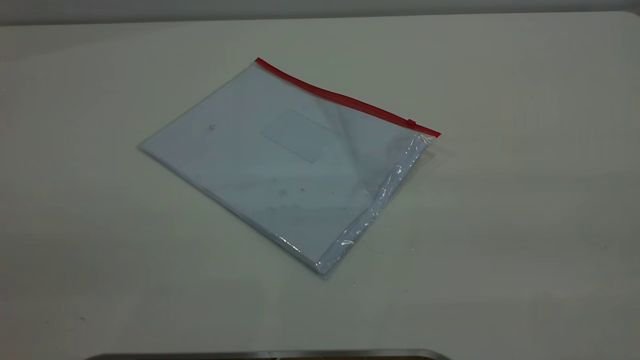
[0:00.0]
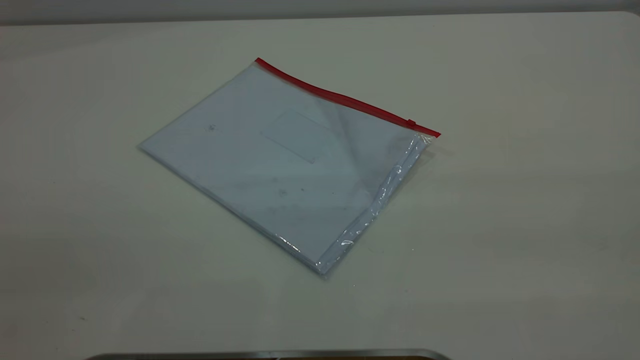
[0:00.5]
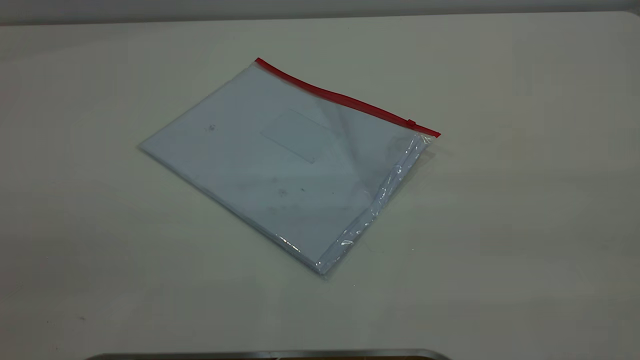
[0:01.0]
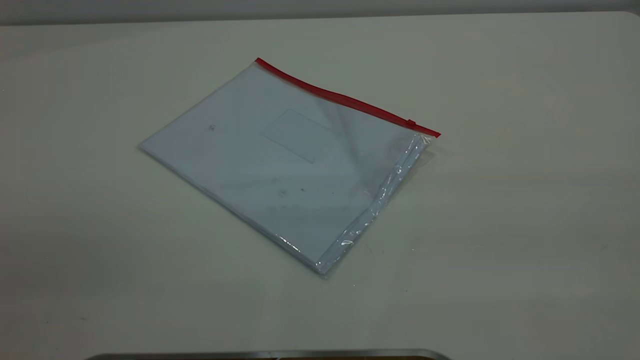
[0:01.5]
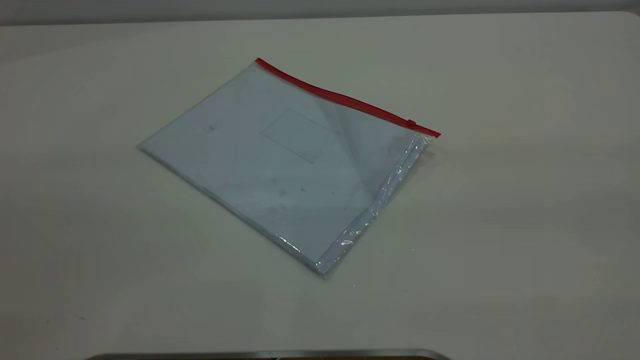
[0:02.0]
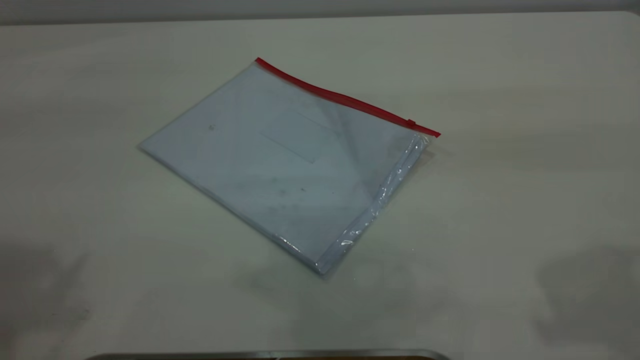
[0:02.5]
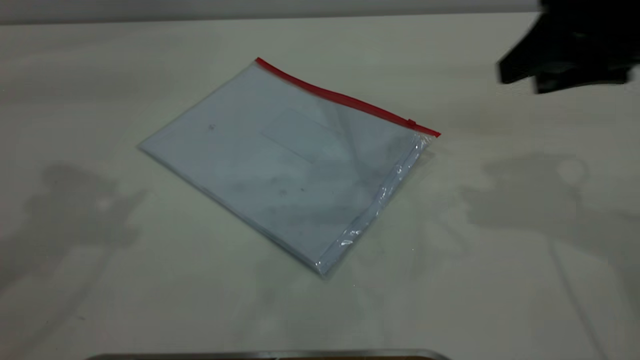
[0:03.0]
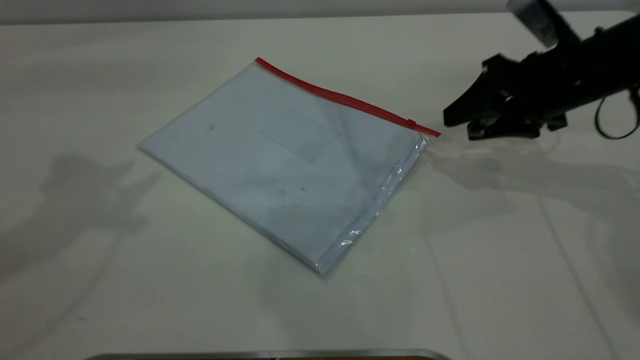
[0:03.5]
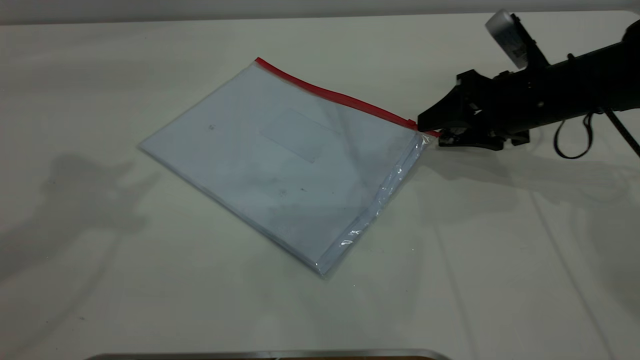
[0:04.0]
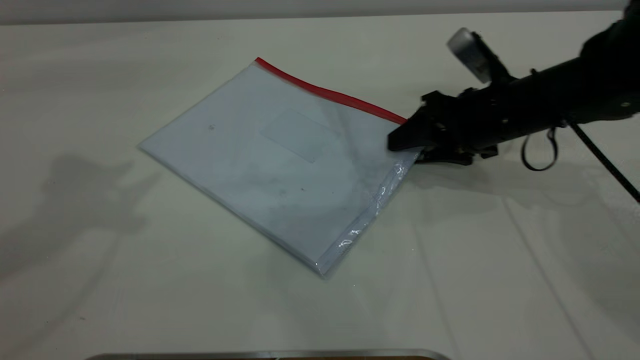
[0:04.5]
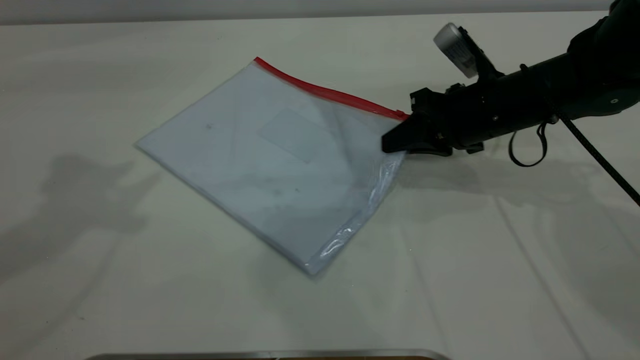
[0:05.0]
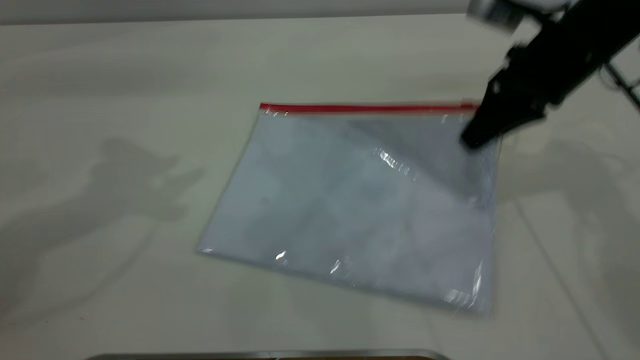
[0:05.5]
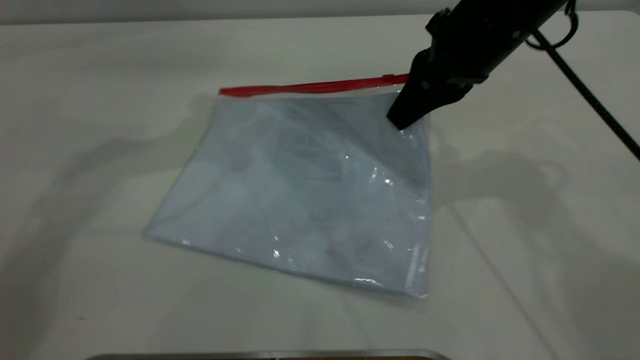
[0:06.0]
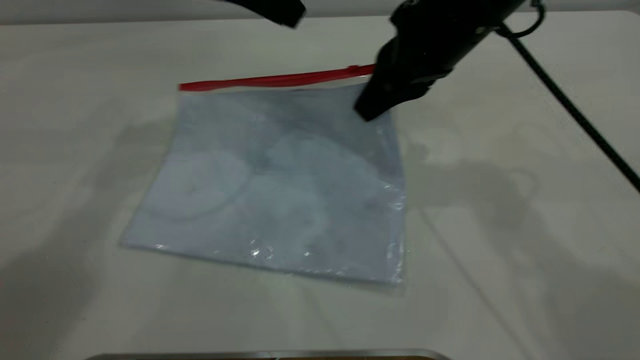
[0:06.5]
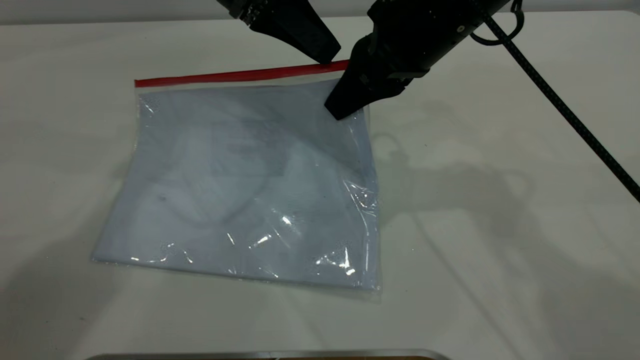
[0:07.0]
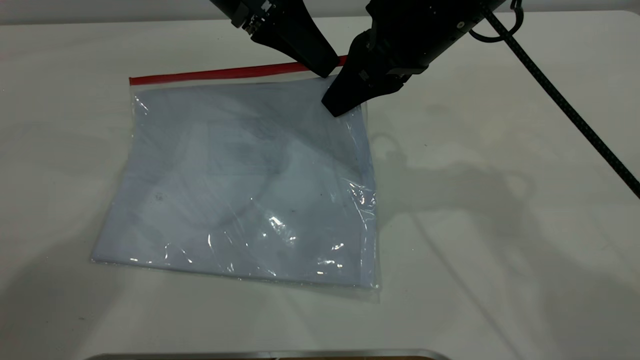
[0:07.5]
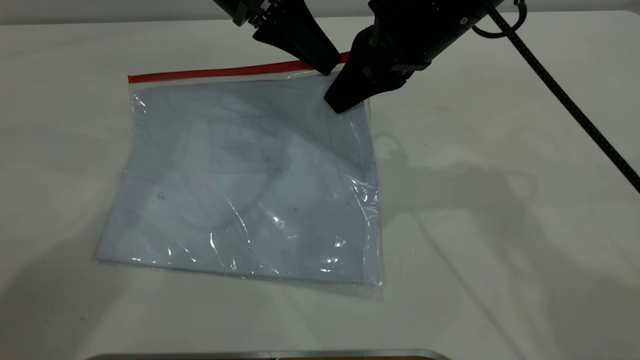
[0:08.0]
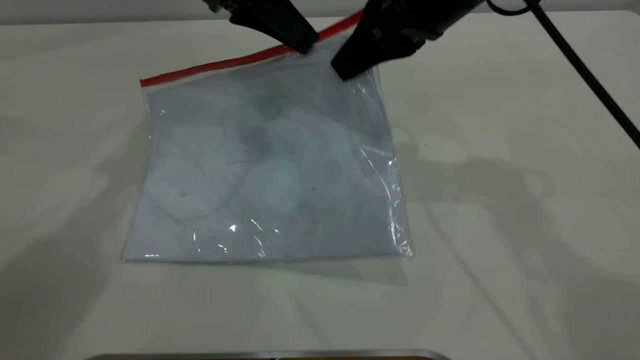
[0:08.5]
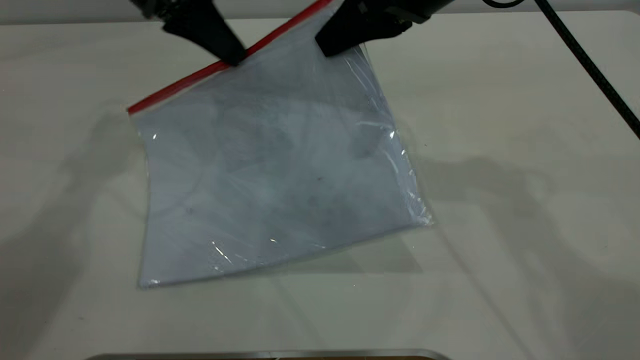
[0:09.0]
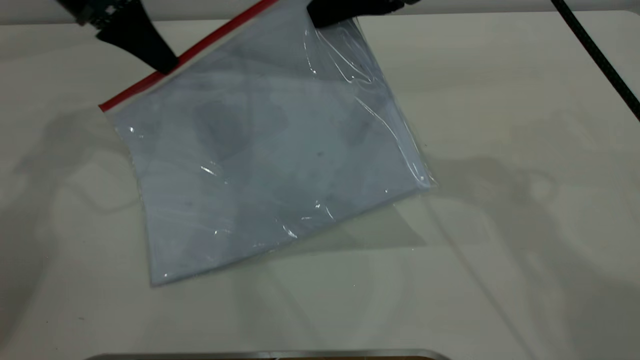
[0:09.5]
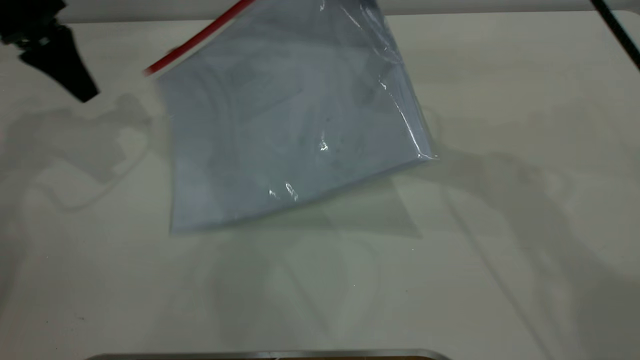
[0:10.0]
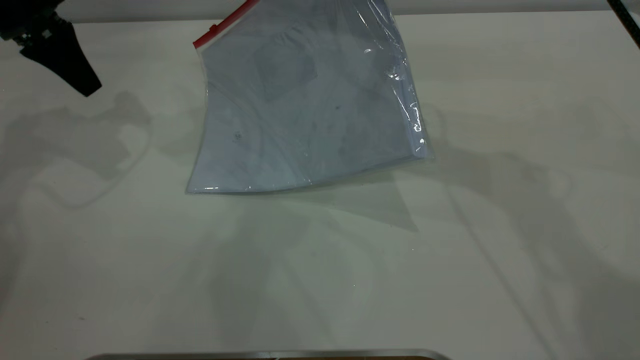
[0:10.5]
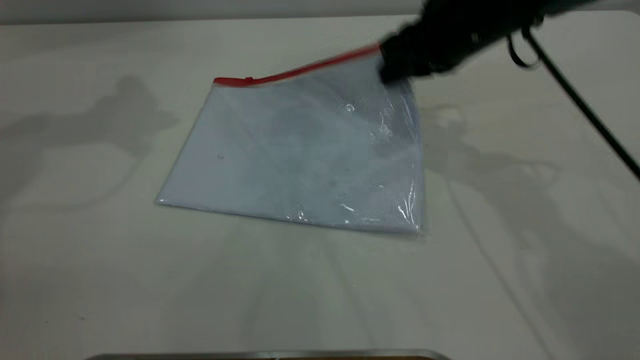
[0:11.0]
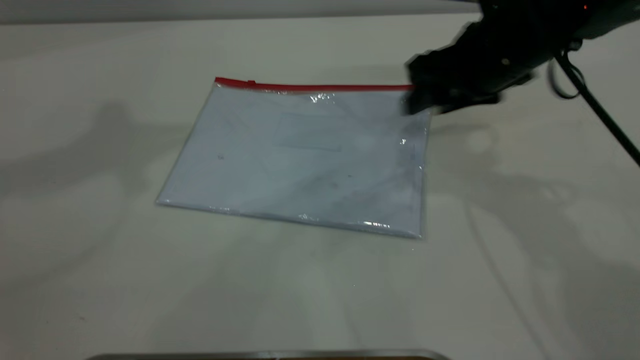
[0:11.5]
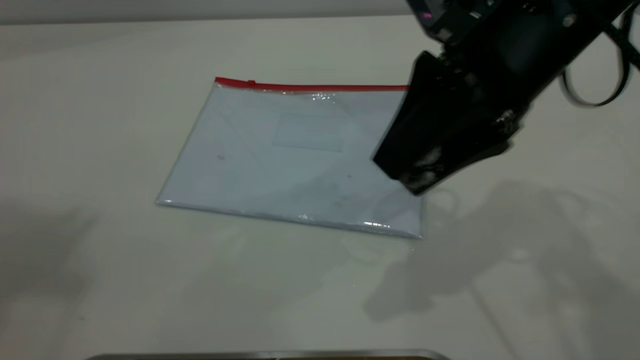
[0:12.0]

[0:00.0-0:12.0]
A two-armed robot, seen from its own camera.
Step, 0:00.0 to 0:06.0: Pick up the transparent plastic bag with the right gripper.
Step, 0:06.5 to 0:10.5: Pulling up the zipper on the transparent plastic bag with the left gripper to close it.
0:02.0 to 0:04.0: The right gripper goes roughly 50 cm forward and downward.
0:04.0 to 0:06.0: The right gripper heads upward and to the left, covering about 15 cm, and closes up, while the left gripper heads forward, to the right and downward, covering approximately 20 cm.
0:06.0 to 0:08.0: The left gripper shifts some 10 cm to the right, and closes up, while the right gripper is displaced to the left by about 5 cm.
0:08.0 to 0:10.0: The right gripper ends up about 5 cm from where it was; the left gripper travels to the left by some 20 cm.
0:10.0 to 0:12.0: The left gripper moves upward and backward, some 40 cm. Meanwhile the right gripper moves backward, some 10 cm, and opens up.

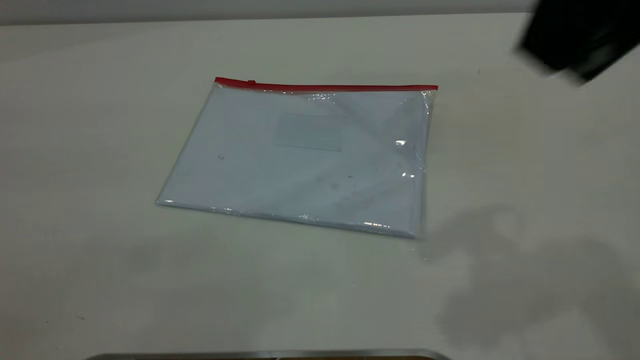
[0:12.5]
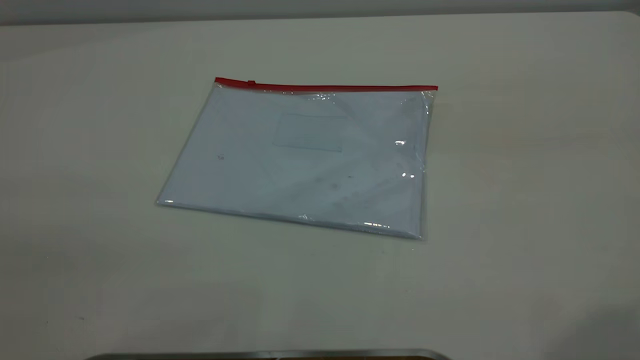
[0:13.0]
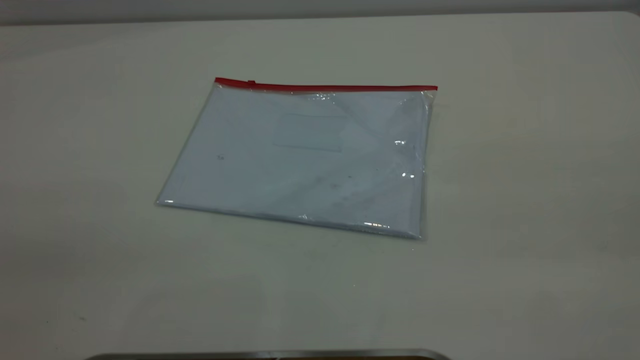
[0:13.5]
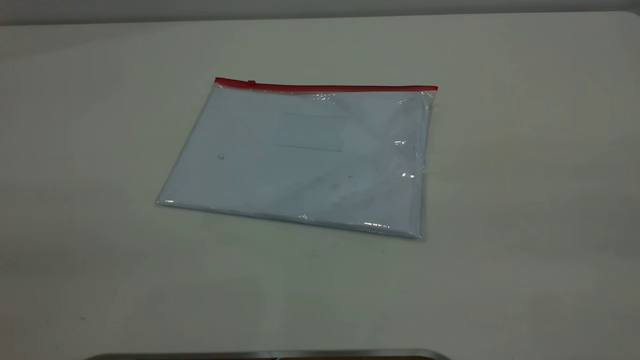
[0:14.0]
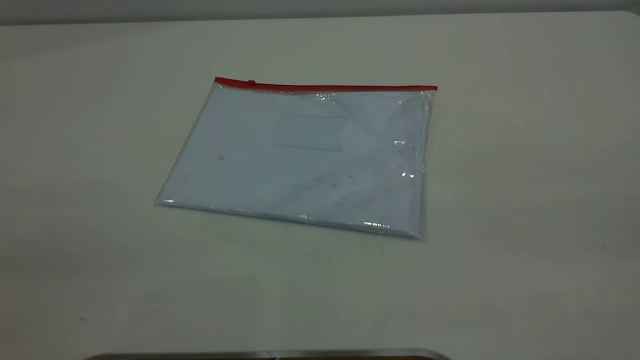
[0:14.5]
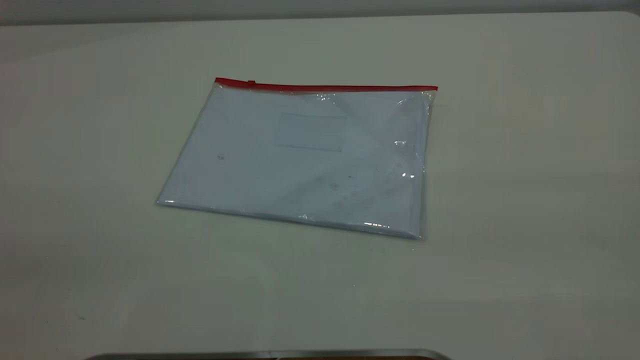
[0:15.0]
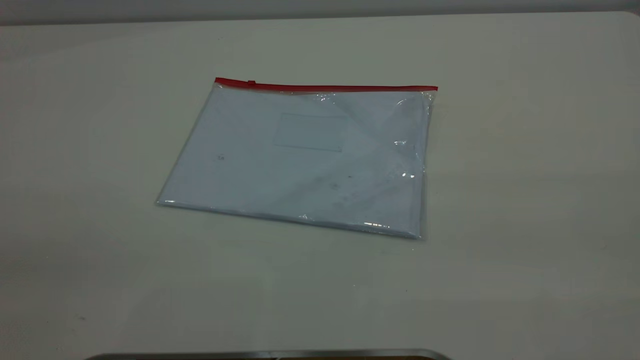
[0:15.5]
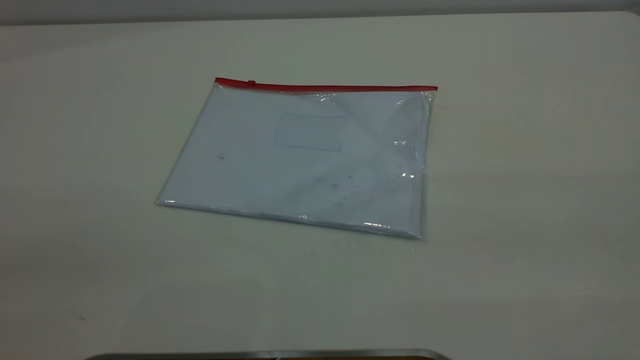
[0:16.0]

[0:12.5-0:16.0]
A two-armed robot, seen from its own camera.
0:12.5 to 0:14.5: The right gripper is displaced backward and to the right by about 20 cm.
